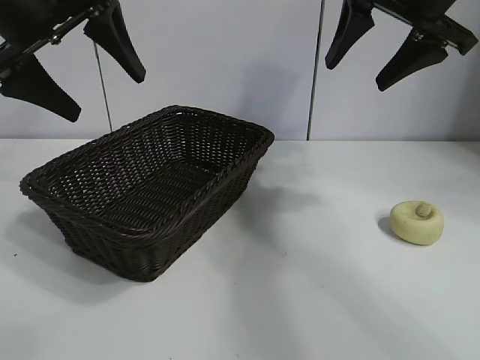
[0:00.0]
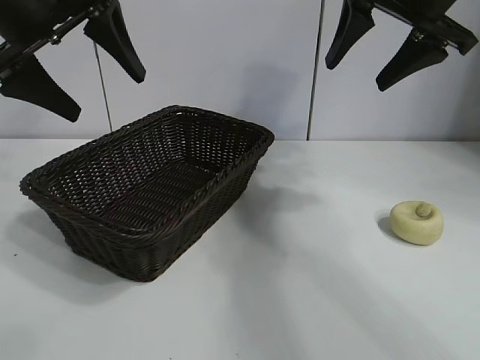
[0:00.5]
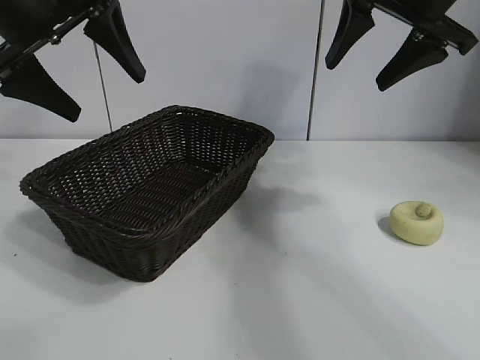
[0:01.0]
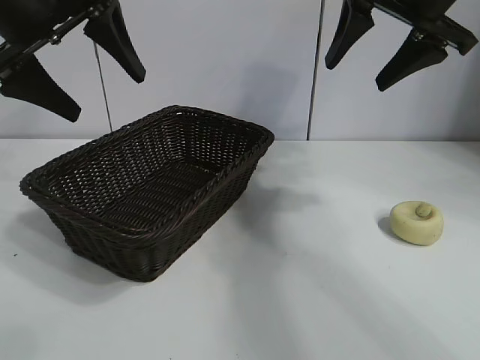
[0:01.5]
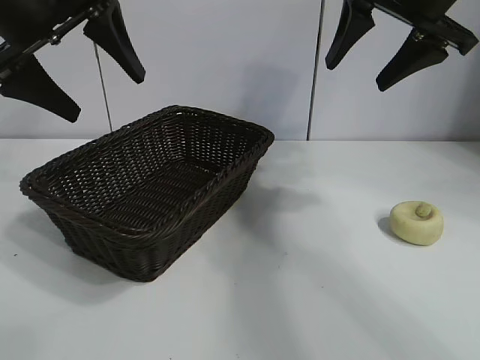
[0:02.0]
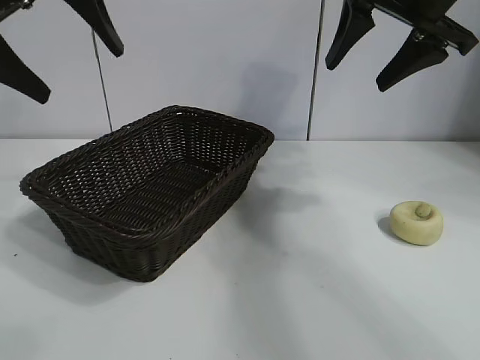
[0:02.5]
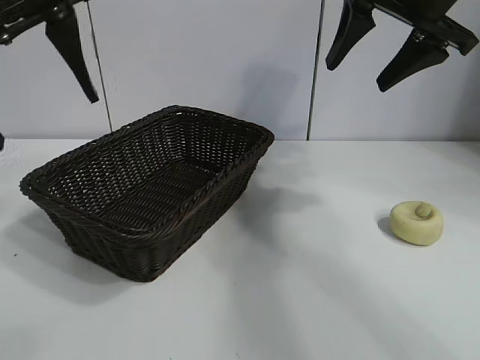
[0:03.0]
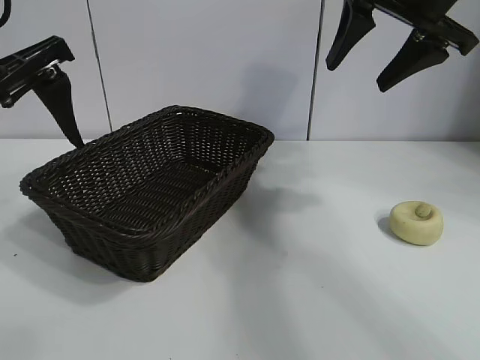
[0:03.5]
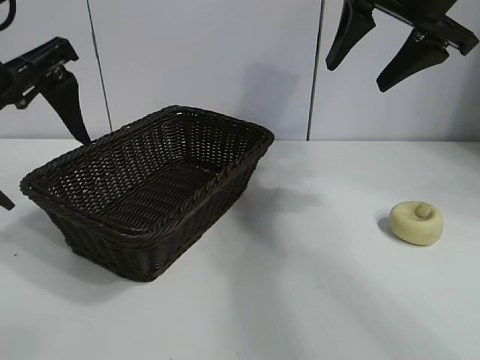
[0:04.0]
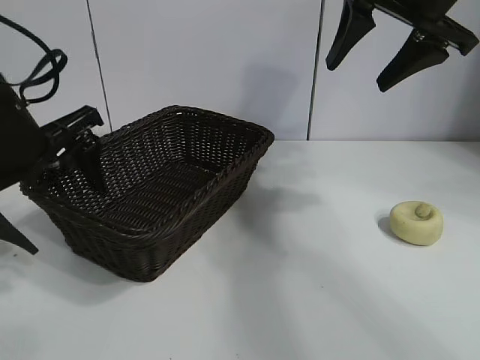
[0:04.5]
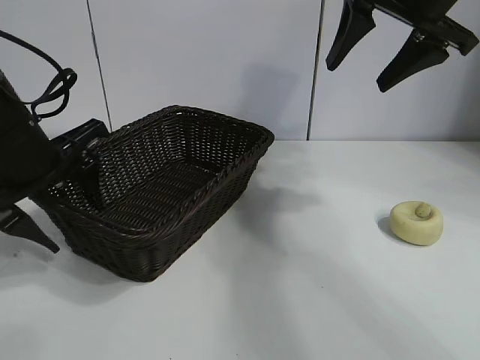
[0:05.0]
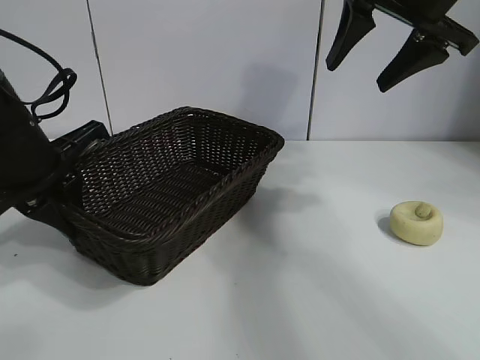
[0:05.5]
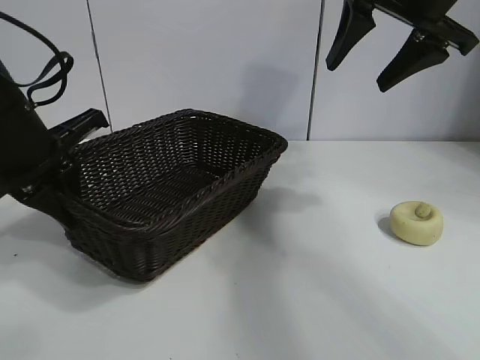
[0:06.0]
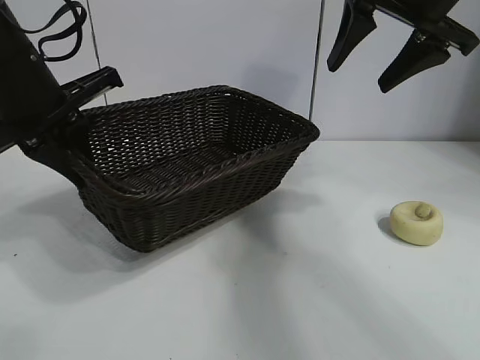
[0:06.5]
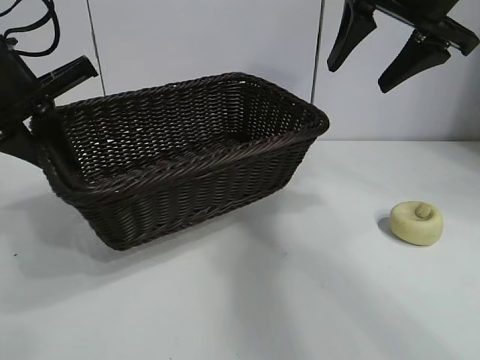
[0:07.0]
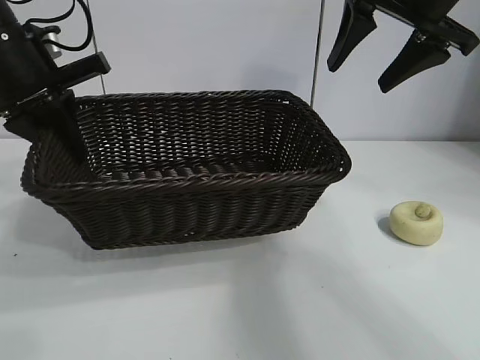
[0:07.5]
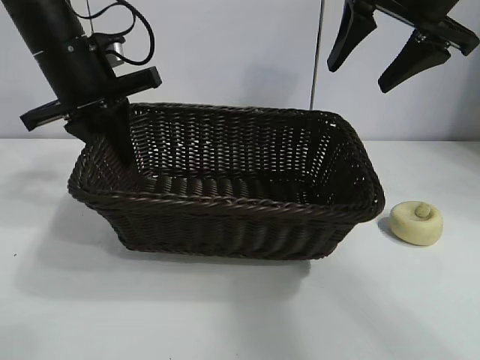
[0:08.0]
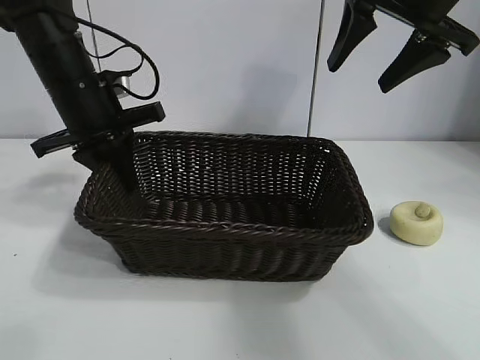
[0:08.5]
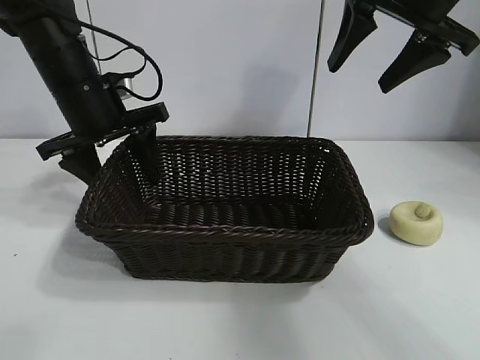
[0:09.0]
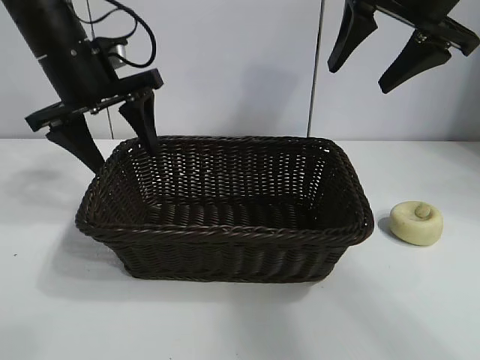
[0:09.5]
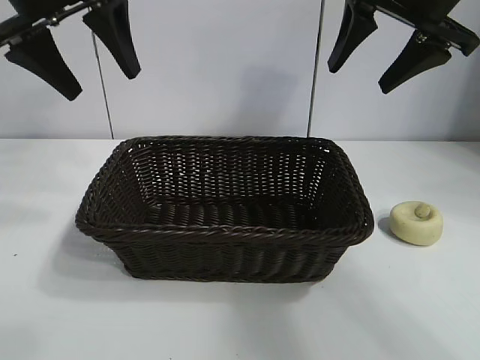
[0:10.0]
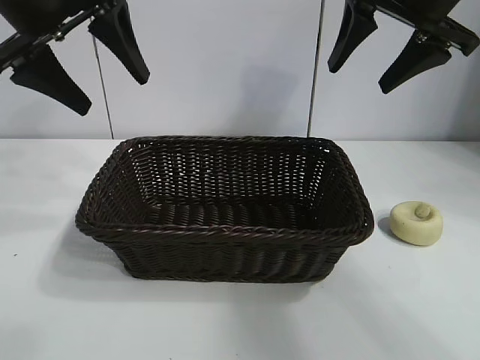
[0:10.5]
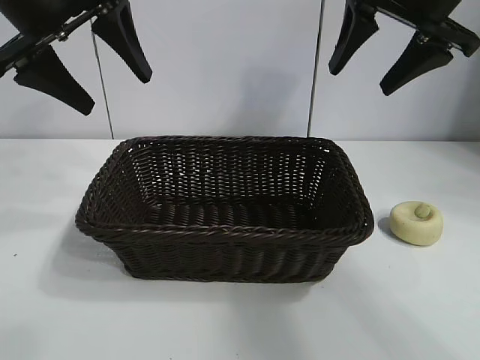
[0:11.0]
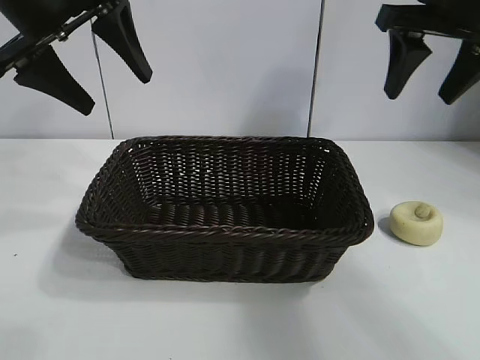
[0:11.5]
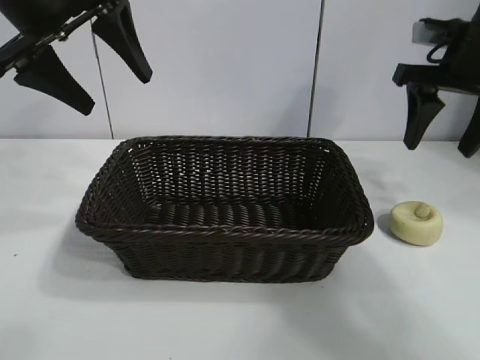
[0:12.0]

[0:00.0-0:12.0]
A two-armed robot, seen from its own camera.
Task of the whole recording: pick up the egg yolk pastry and put it into the basket.
Step, 0:02.0 to 0:05.0: Grasp the basket with left gripper.
Step, 0:05.5 to 0:09.0: Place the basket in the center of view with left gripper.

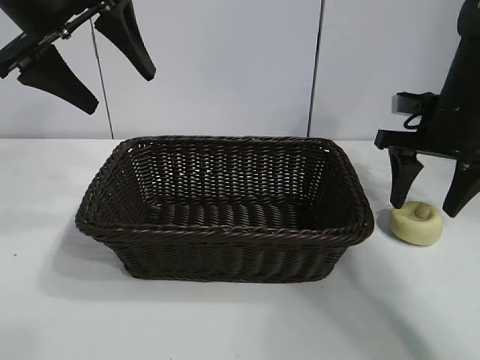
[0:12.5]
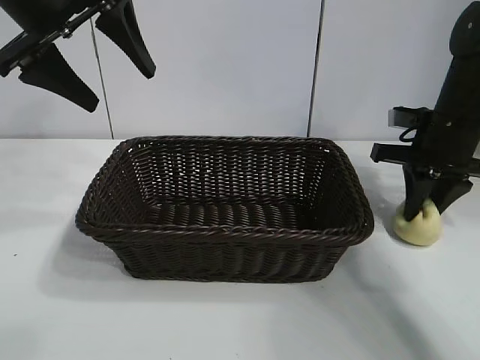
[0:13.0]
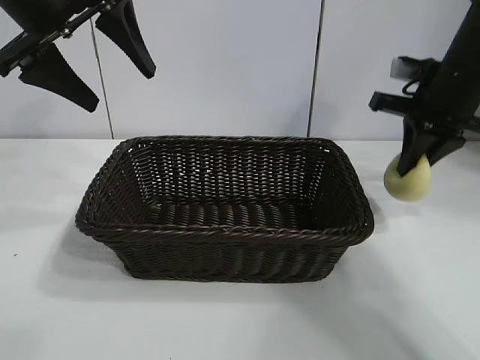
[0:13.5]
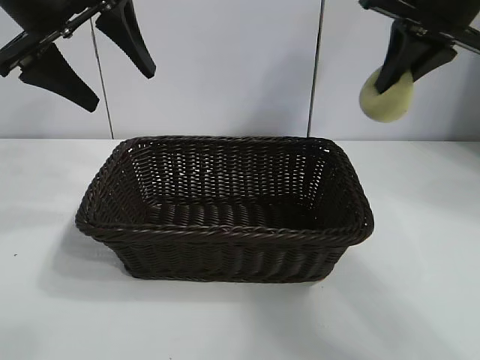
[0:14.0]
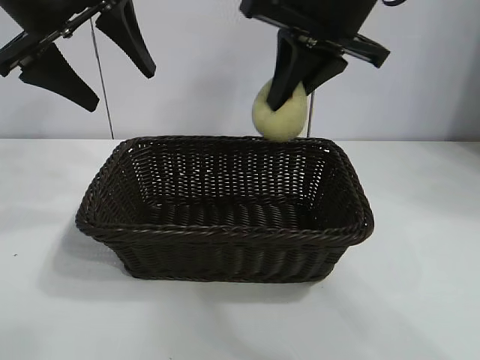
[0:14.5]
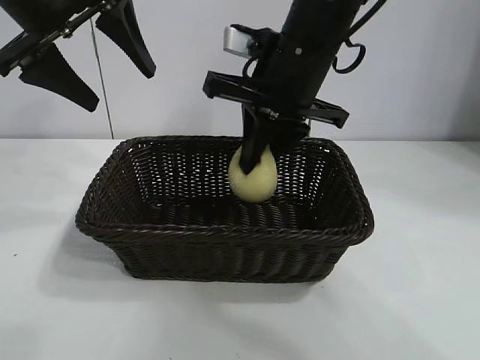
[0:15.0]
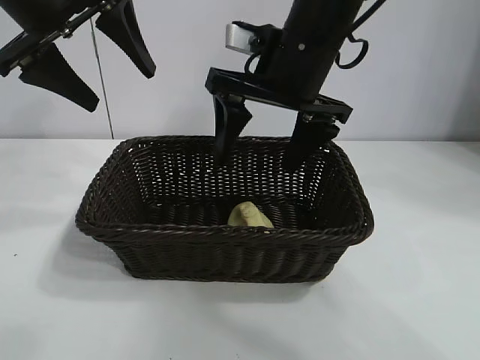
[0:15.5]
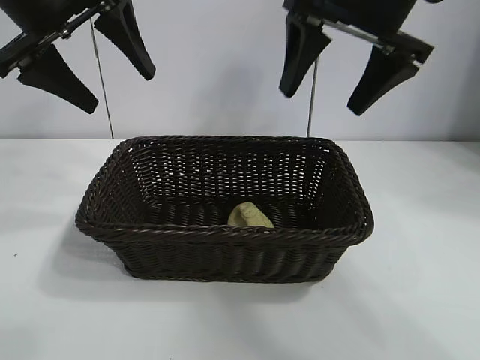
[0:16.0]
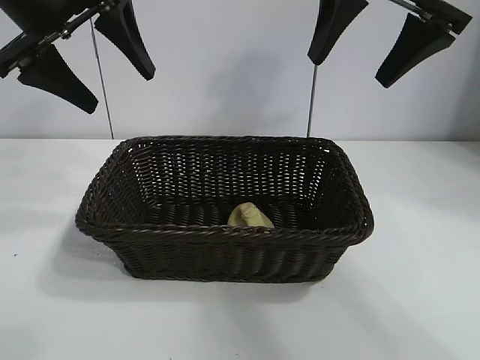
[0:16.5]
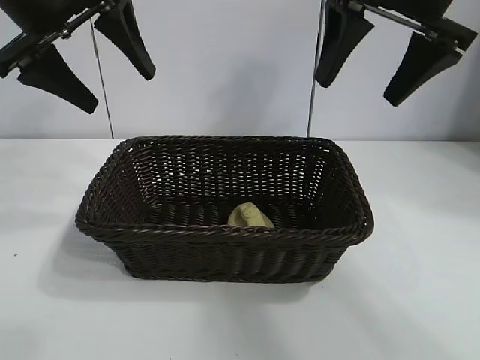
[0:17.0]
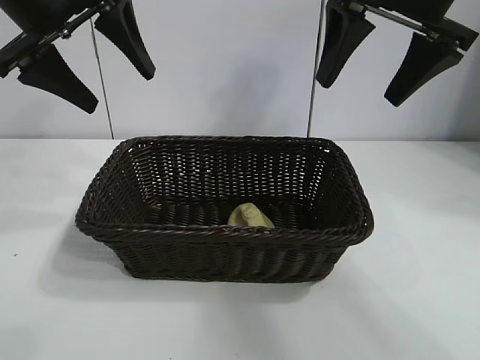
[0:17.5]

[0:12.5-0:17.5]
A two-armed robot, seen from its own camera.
Task of the whole recording: pick up the egg yolk pastry and put it into the basket.
Step, 0:13.5 to 0:15.0: Place the egg yolk pastry in the basket with right gripper.

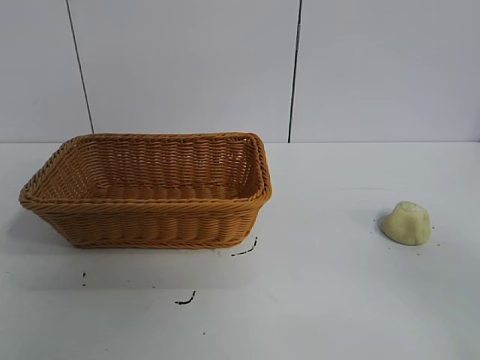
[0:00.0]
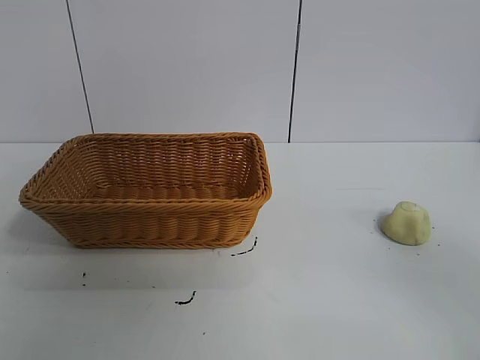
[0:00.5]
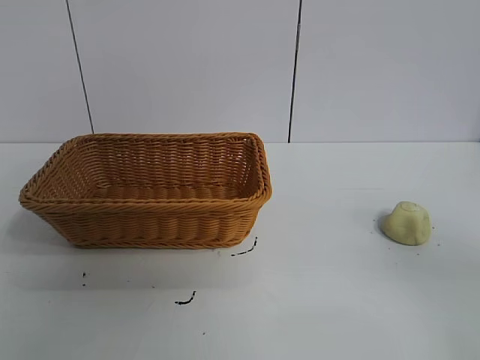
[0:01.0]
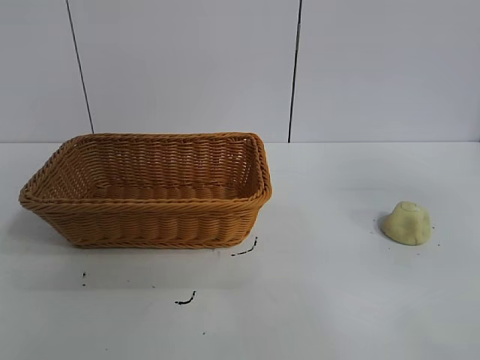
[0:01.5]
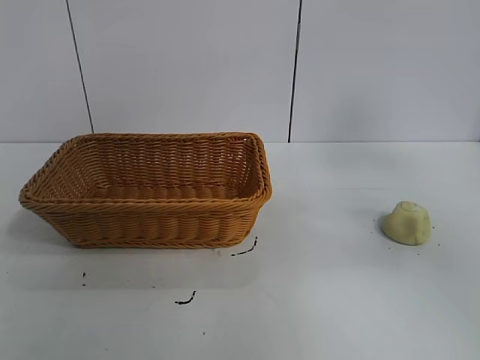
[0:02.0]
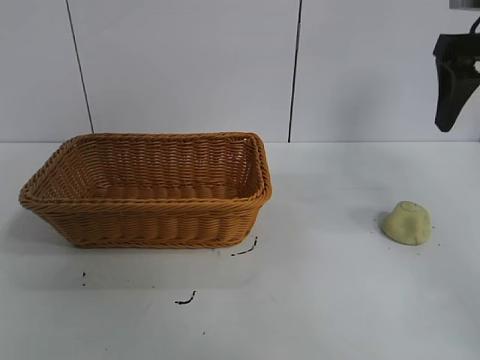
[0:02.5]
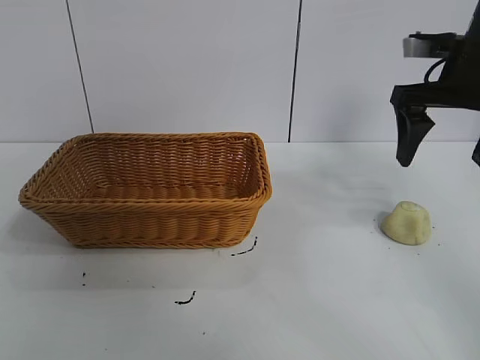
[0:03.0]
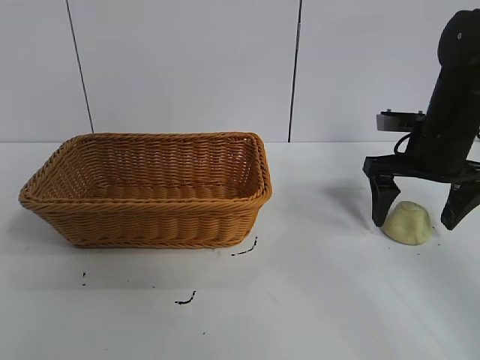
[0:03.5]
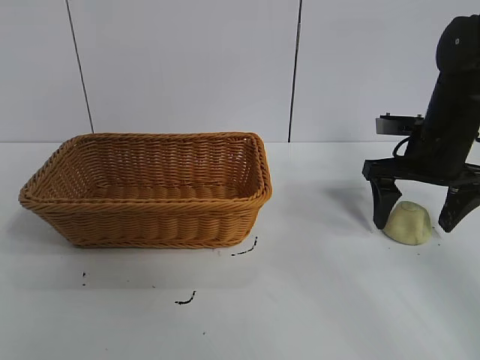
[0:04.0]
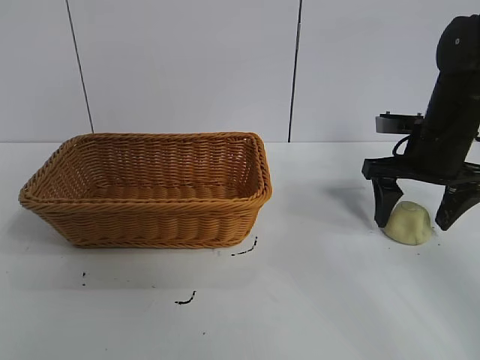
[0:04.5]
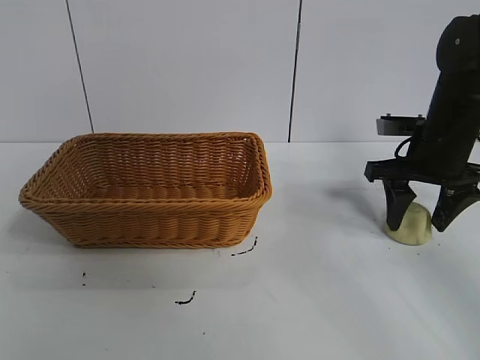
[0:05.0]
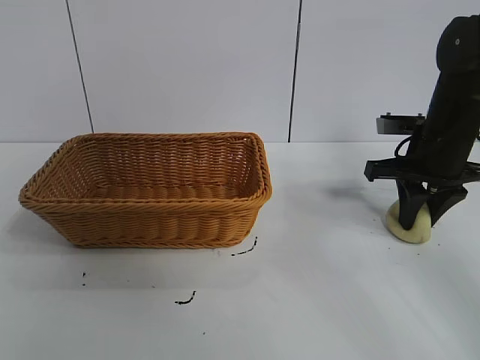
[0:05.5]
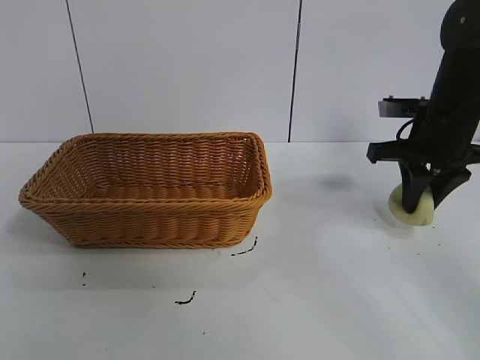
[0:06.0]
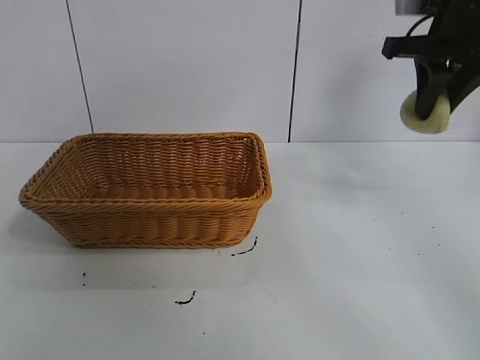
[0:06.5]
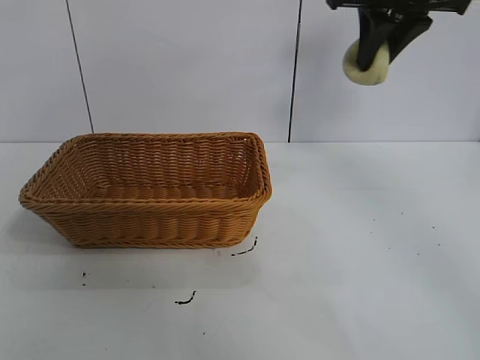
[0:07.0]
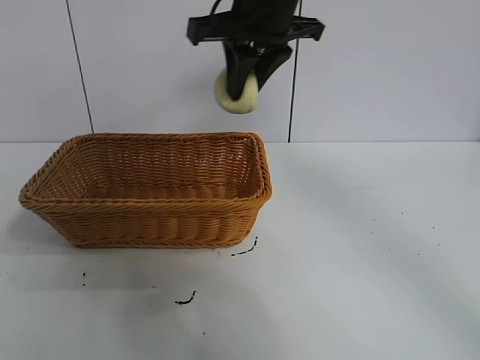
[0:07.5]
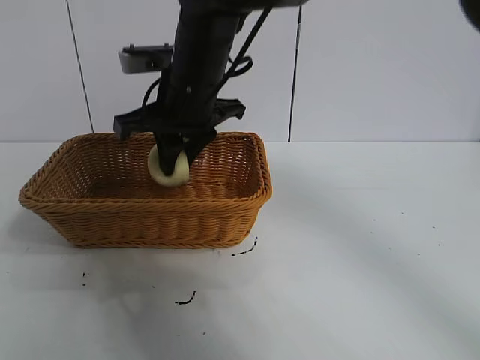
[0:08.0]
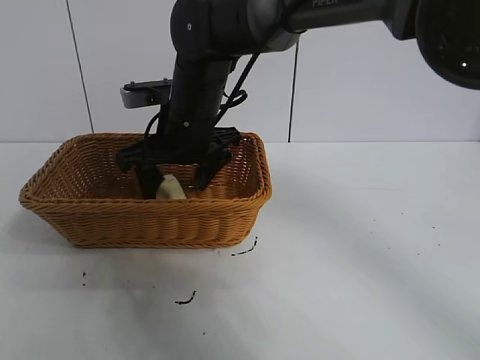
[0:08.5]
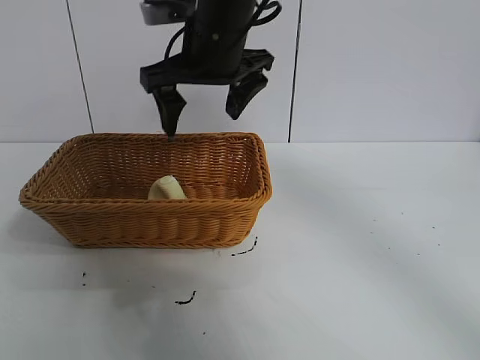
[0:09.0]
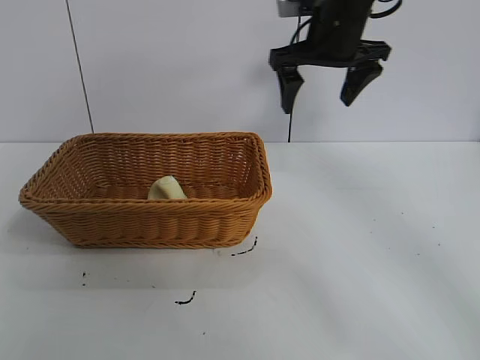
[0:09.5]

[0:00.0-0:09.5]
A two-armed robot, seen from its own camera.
Task of the whole recording: pick up the egg yolk pastry and put it into the basket.
Step, 0:01.0 to 0:05.0: Grasp egg yolk pastry with right gripper.
Step, 0:05.5 to 0:08.0: Place the egg yolk pastry in the basket with right gripper.
